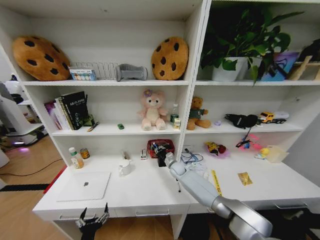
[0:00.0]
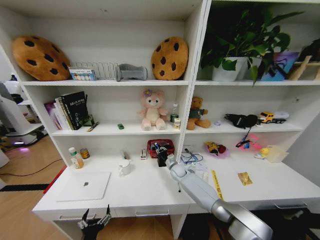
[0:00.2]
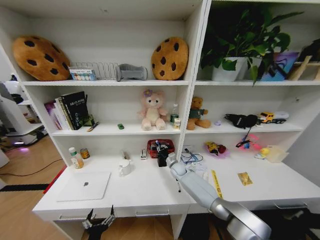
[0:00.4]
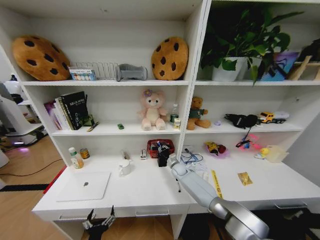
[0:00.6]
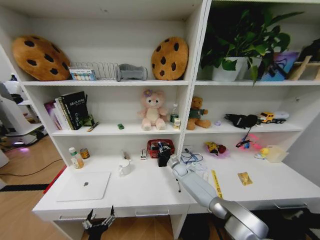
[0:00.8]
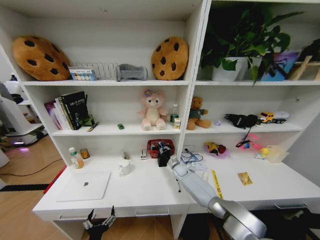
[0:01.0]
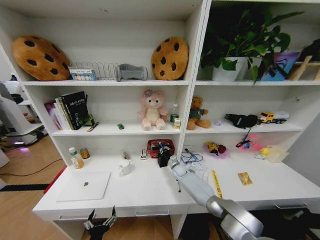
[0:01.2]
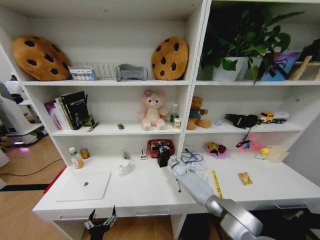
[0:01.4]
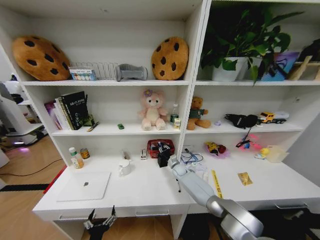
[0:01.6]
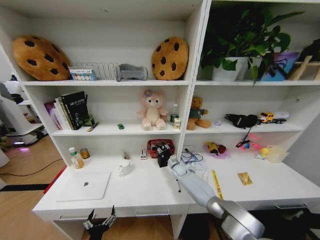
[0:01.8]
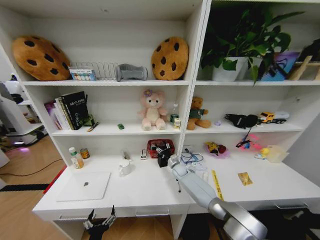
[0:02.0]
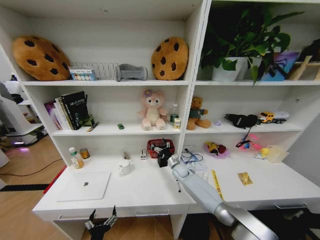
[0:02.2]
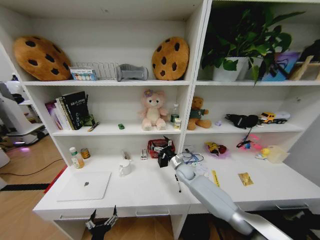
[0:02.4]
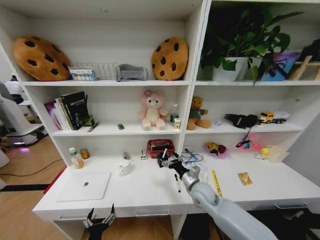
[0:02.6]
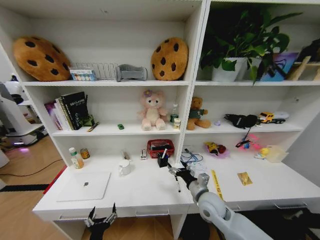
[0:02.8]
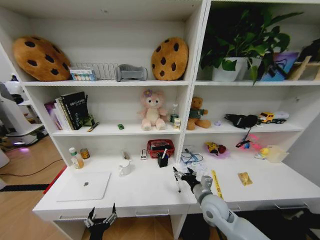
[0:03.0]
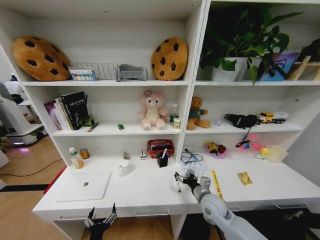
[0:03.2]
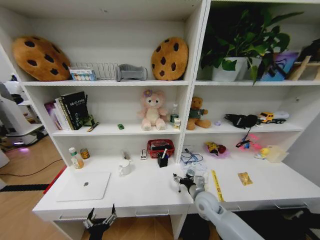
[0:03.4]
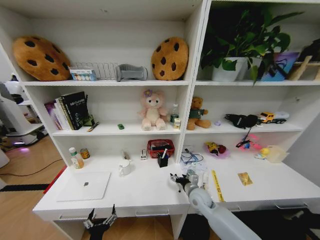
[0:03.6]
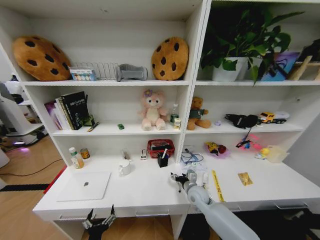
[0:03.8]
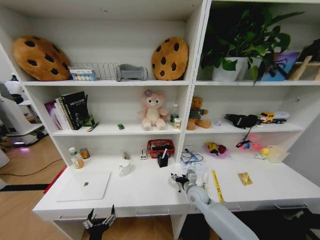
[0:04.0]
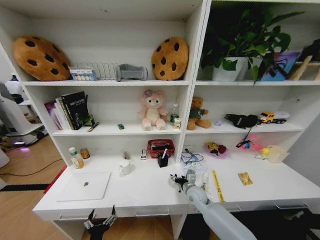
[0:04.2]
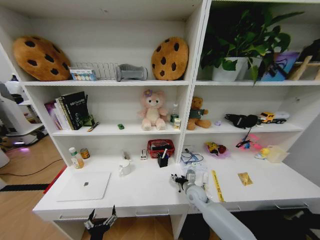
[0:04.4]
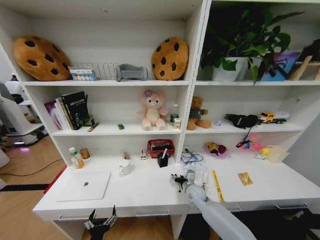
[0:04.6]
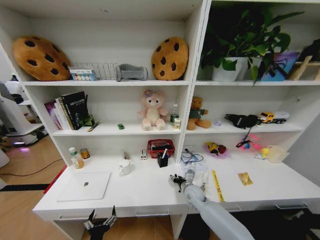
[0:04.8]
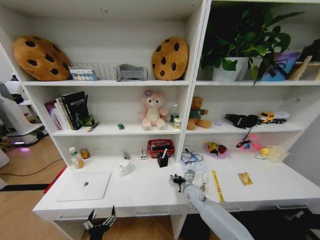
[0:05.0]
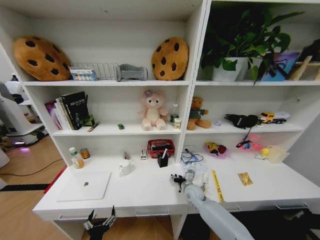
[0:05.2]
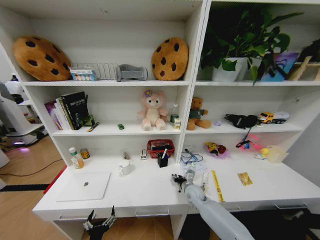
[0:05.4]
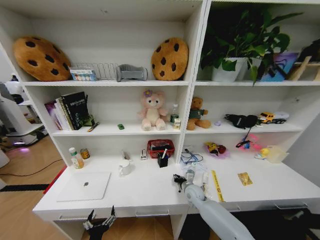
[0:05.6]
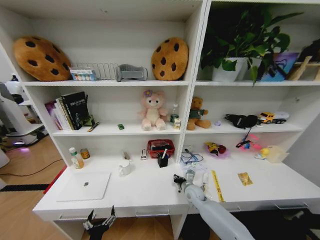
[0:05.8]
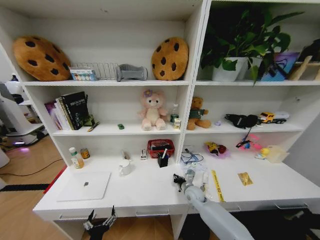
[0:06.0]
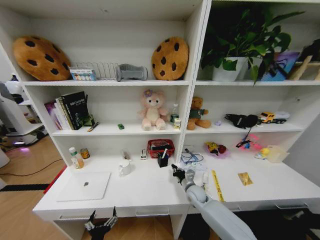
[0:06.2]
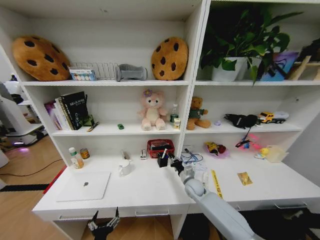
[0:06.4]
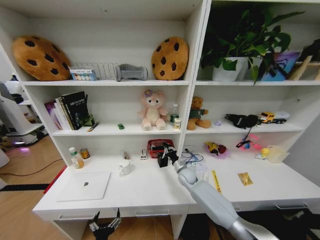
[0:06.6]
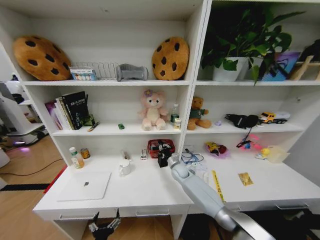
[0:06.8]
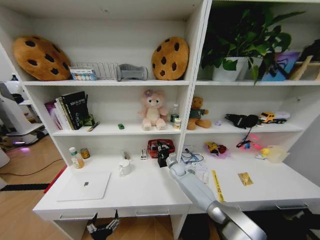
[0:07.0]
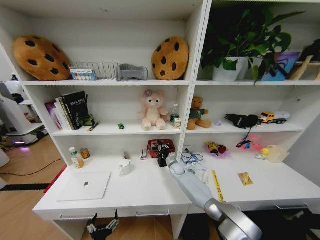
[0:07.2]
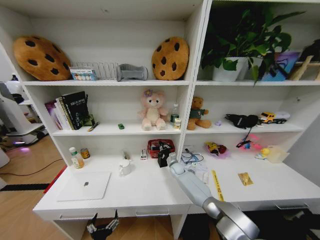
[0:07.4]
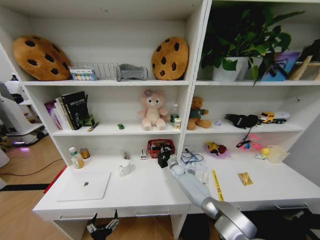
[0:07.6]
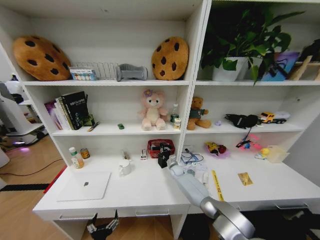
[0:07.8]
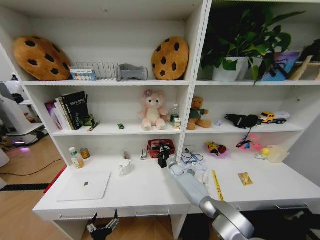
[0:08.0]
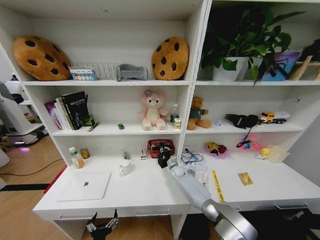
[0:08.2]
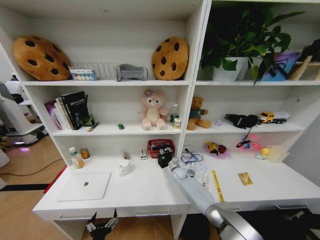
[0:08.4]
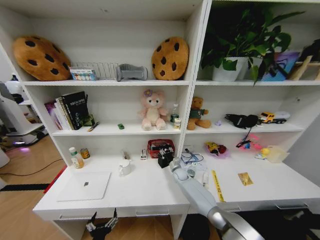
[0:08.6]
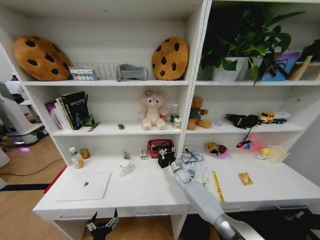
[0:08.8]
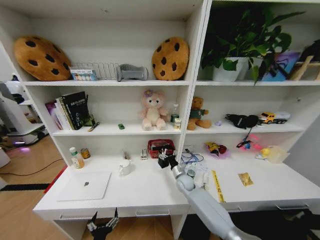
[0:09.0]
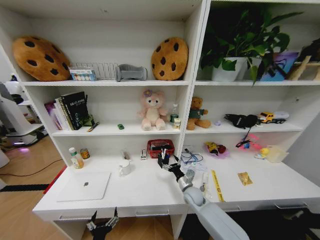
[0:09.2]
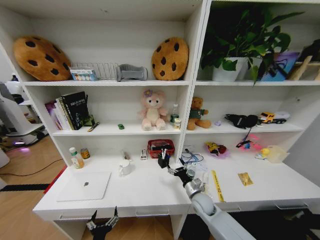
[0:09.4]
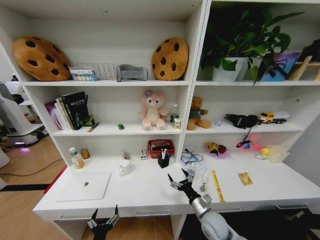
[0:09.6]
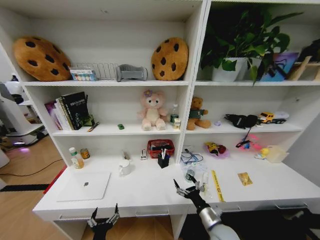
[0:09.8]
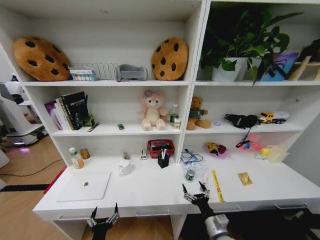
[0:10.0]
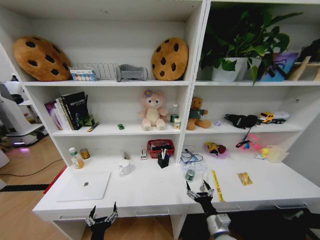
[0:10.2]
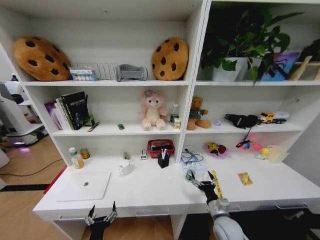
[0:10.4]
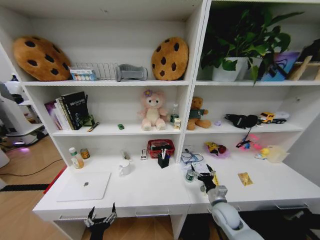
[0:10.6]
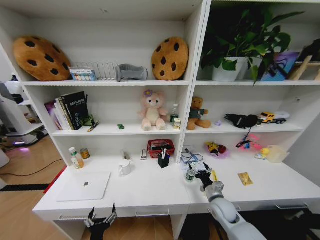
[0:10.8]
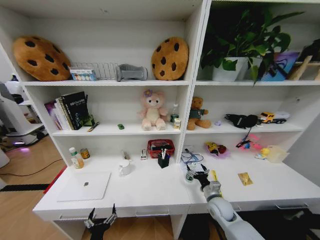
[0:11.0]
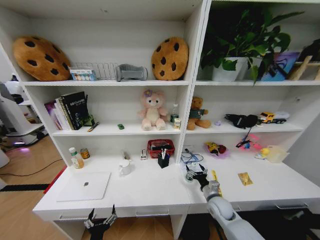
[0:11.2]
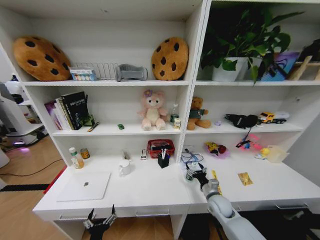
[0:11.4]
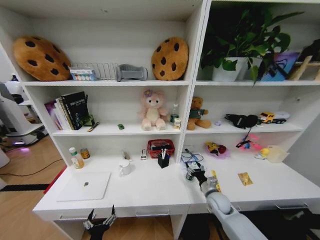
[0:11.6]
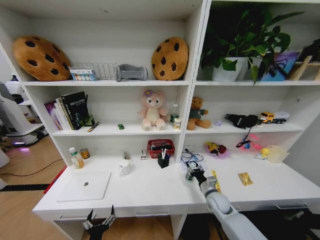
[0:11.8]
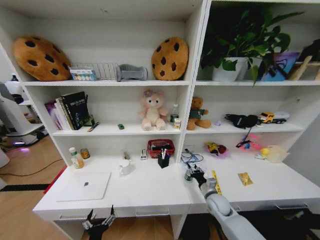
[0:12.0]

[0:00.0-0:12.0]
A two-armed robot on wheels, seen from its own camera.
Task of the whole recording: Organize the objects on the table.
0:00.0 to 0:01.6: The grippers move only a little.
0:01.6 to 0:03.0: The right gripper moves backward and upward, about 30 cm, and opens.
0:03.0 to 0:04.4: The right gripper goes approximately 15 cm downward and forward.
0:06.0 to 0:07.6: The right gripper shifts about 15 cm forward.
0:07.6 to 0:09.0: The right gripper heads backward, covering roughly 10 cm, and opens up.
0:09.0 to 0:10.4: The right gripper heads backward and to the right, covering roughly 25 cm.
0:10.4 to 0:12.0: The right gripper heads forward, covering some 10 cm, and closes.

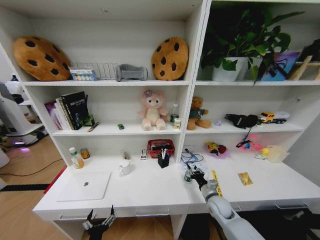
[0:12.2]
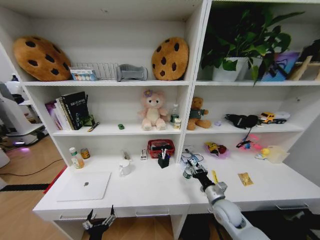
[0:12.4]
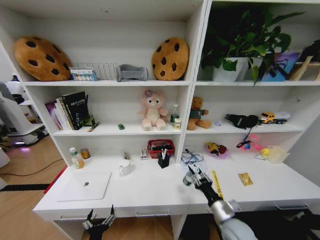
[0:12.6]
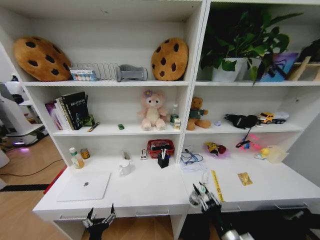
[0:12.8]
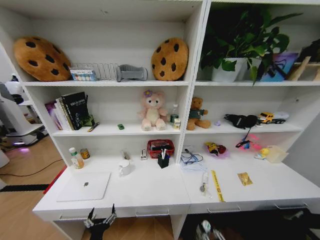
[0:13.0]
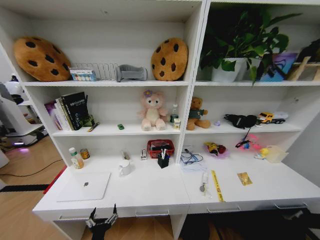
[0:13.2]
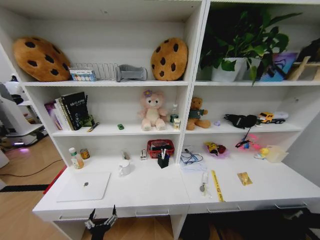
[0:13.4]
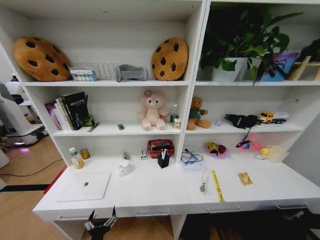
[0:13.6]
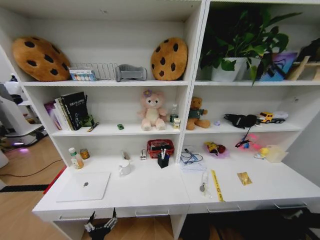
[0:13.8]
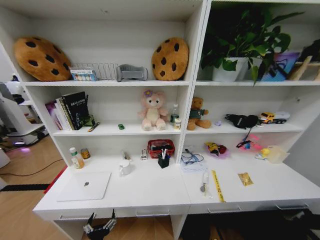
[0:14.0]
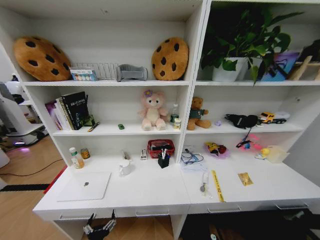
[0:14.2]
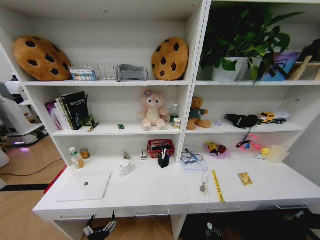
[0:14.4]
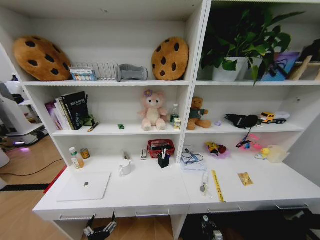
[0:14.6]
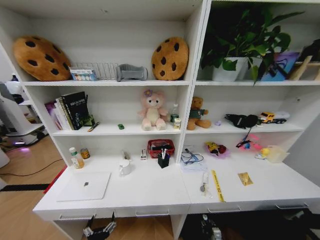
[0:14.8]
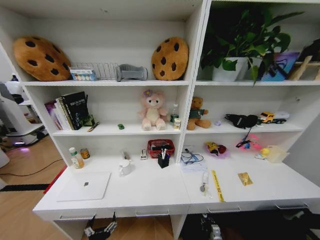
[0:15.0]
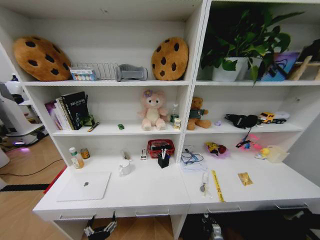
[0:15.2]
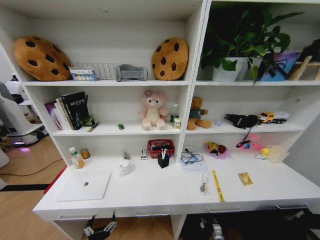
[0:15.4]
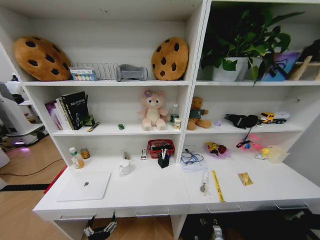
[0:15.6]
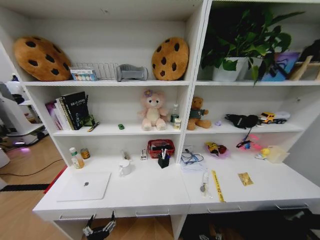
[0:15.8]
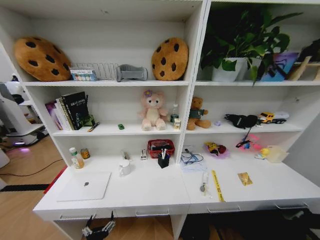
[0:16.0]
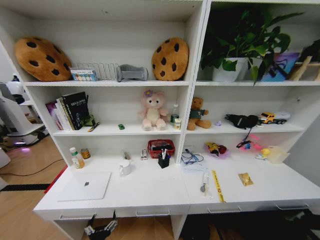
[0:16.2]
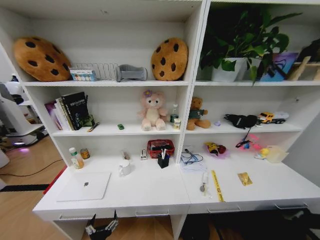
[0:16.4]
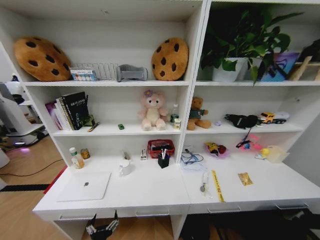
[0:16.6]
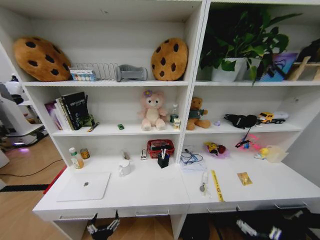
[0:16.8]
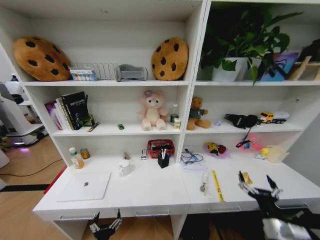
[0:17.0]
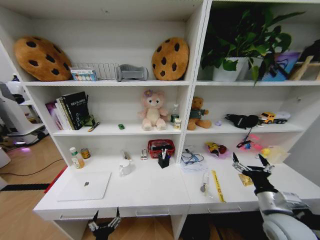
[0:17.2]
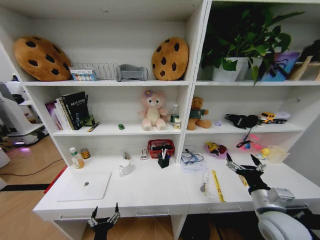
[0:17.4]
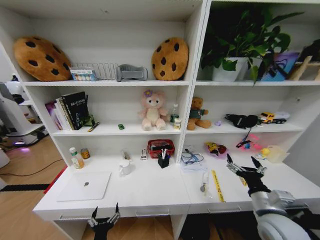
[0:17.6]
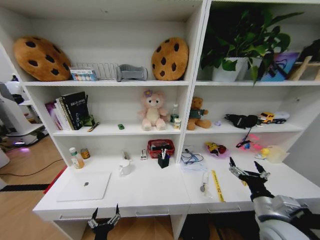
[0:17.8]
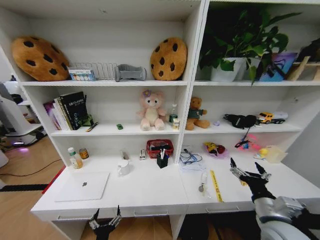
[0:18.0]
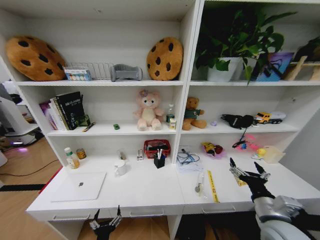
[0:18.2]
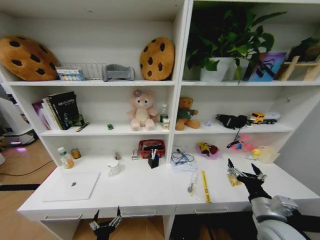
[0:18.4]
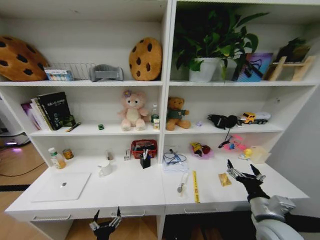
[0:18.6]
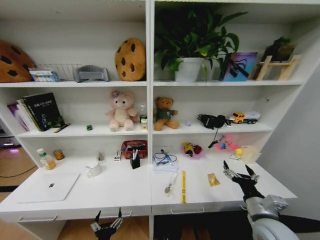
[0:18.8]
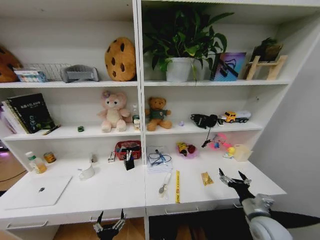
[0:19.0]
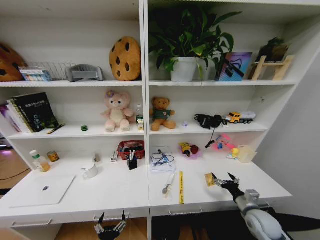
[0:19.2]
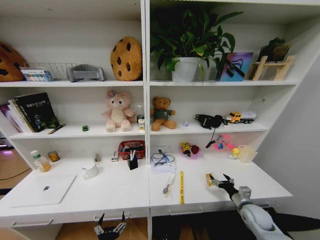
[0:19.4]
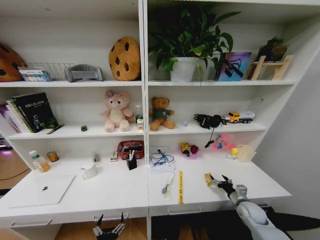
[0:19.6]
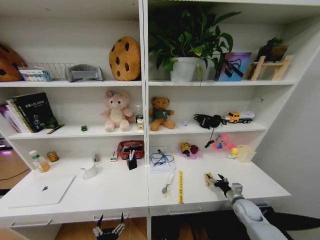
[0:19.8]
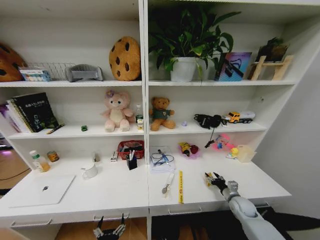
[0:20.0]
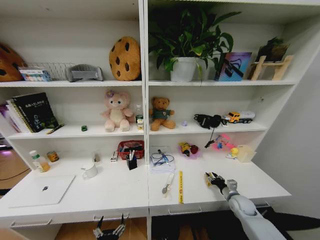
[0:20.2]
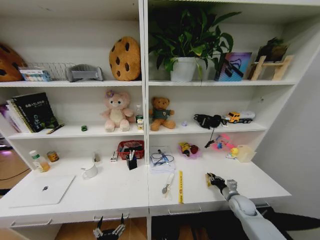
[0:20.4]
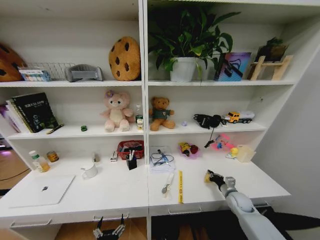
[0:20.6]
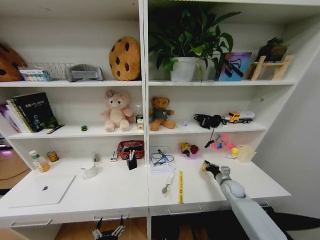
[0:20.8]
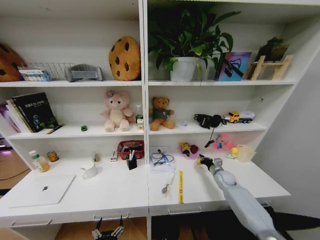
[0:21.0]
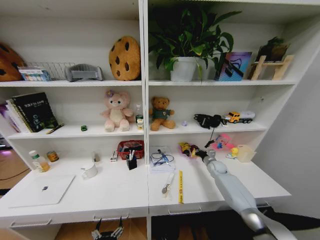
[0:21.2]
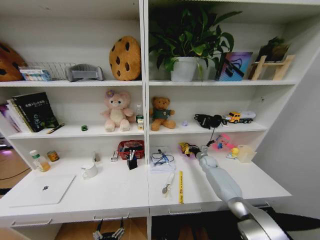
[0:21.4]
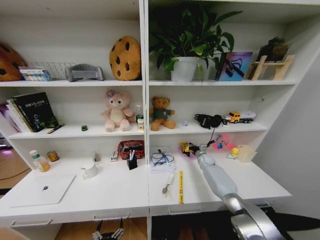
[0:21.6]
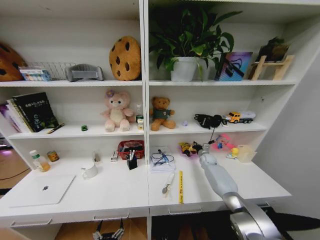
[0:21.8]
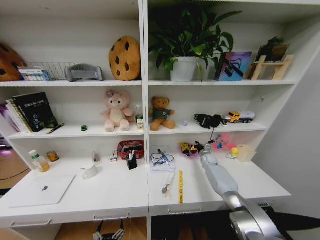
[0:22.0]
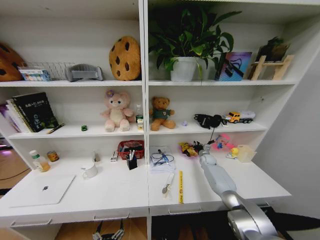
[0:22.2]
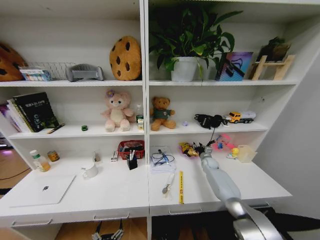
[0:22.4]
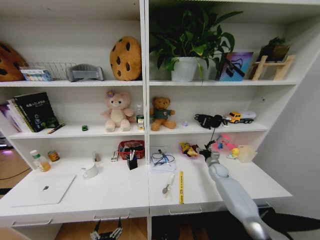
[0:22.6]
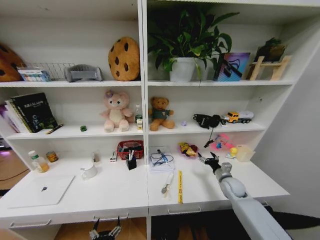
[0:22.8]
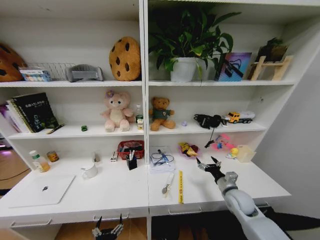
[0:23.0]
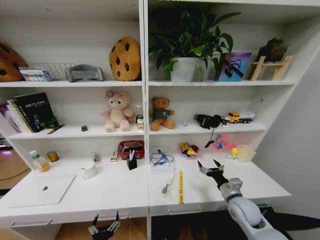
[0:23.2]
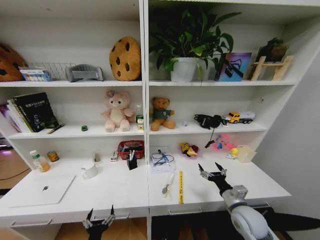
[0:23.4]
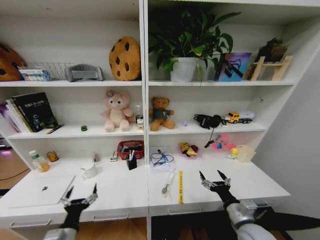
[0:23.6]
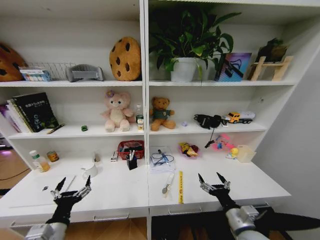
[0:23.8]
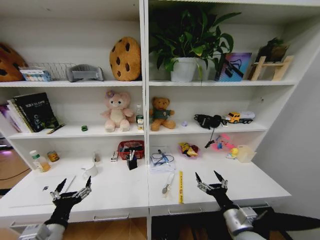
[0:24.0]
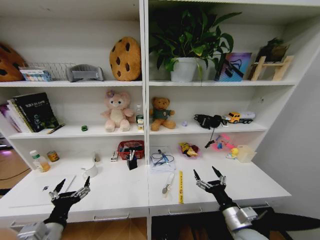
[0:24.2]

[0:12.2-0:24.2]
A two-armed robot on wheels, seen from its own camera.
Task of the whole recording: Organize the objects on the table.
0:12.2 to 0:13.8: The right gripper moves backward and downward, roughly 40 cm.
0:13.8 to 0:15.2: The right gripper heads forward, covering about 20 cm.
0:16.6 to 0:18.2: The right gripper travels upward and forward by about 35 cm.
0:18.2 to 0:19.8: The right gripper shifts roughly 25 cm downward, forward and to the right.
0:19.8 to 0:21.2: The right gripper travels forward by some 20 cm, and closes up.
0:21.2 to 0:22.6: The right gripper opens.
0:22.6 to 0:24.2: The right gripper travels backward by approximately 30 cm, while the left gripper heads upward and to the left, covering about 20 cm.
